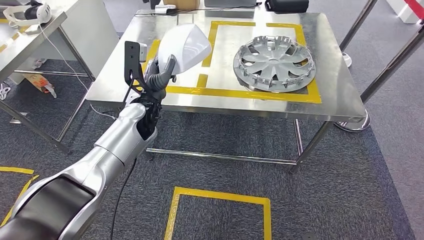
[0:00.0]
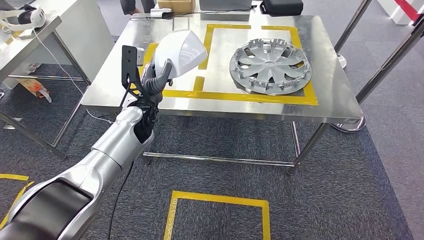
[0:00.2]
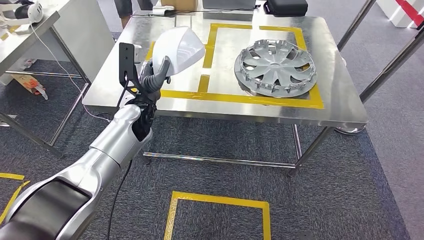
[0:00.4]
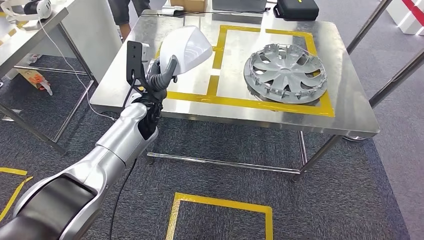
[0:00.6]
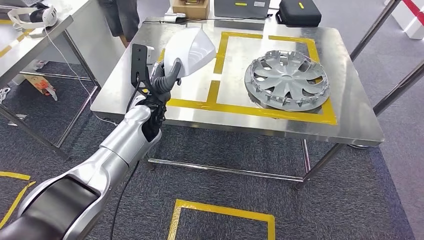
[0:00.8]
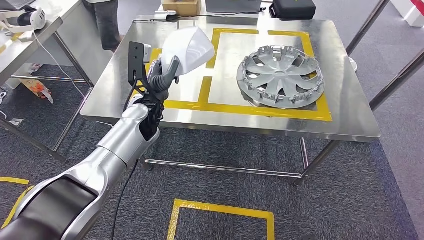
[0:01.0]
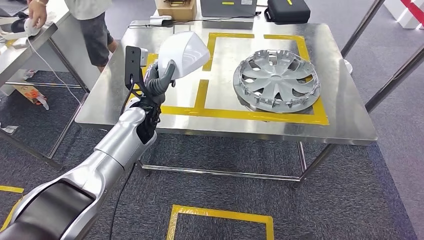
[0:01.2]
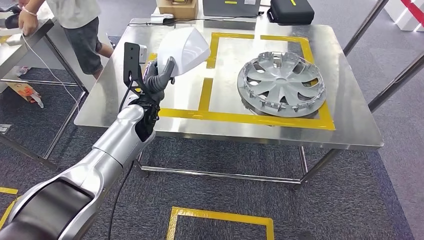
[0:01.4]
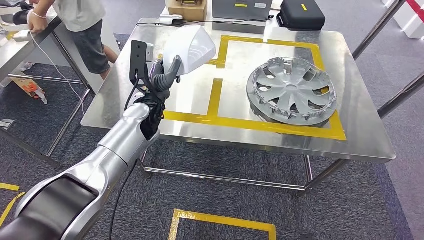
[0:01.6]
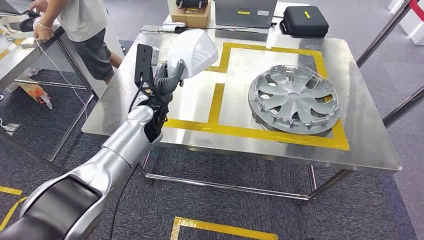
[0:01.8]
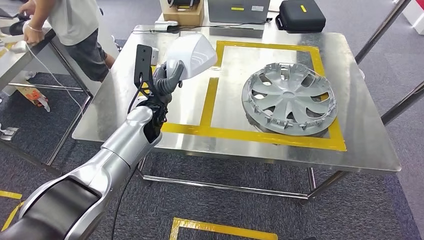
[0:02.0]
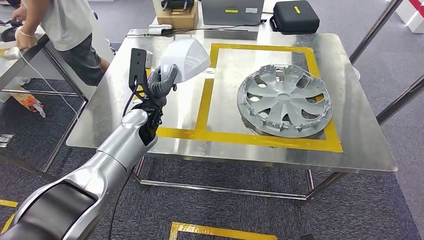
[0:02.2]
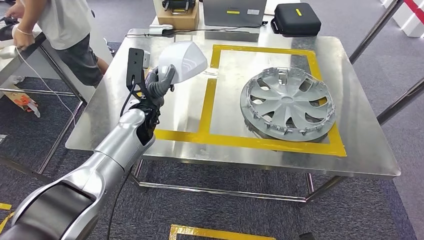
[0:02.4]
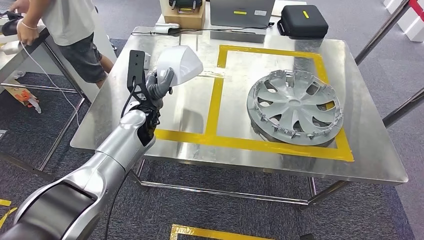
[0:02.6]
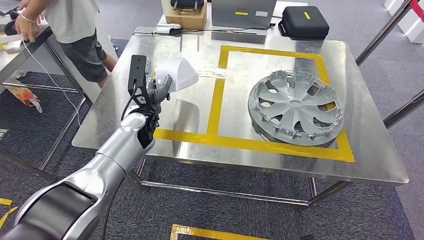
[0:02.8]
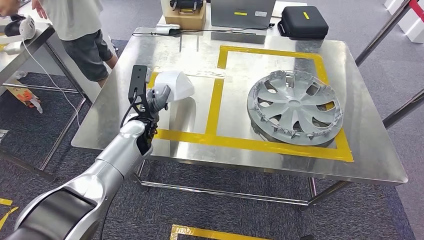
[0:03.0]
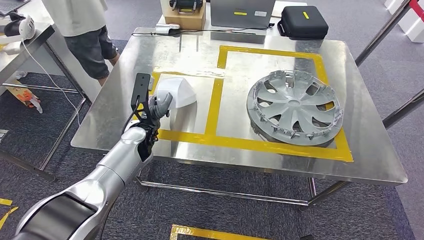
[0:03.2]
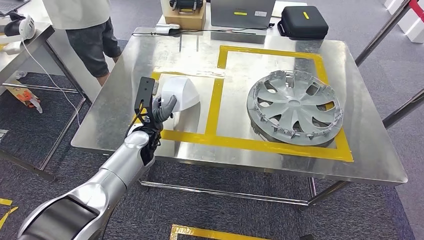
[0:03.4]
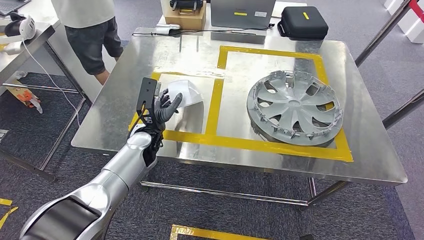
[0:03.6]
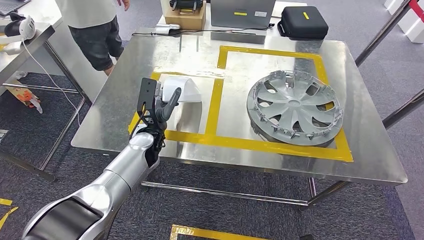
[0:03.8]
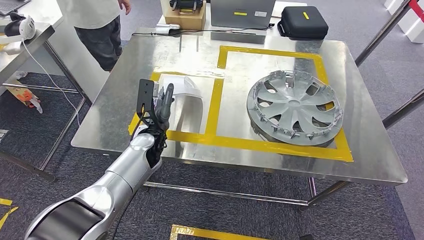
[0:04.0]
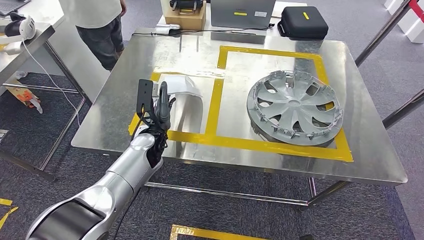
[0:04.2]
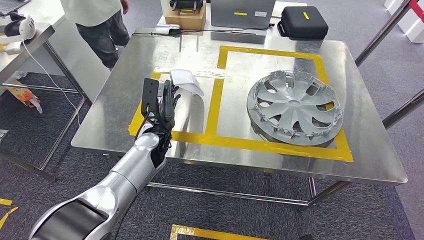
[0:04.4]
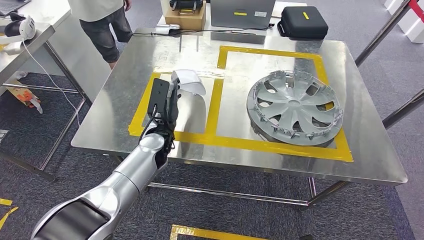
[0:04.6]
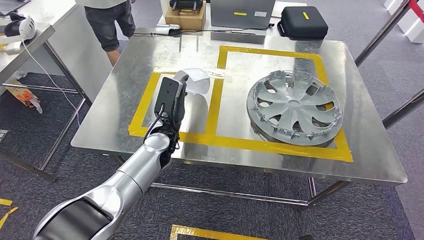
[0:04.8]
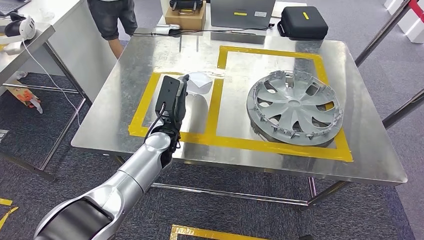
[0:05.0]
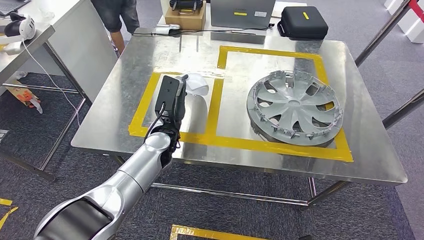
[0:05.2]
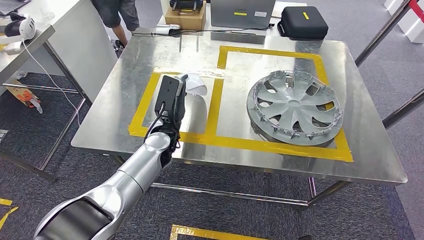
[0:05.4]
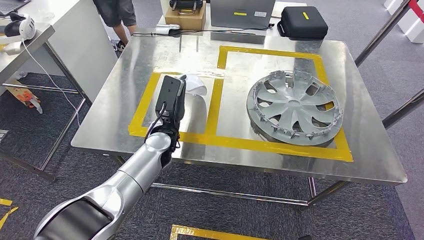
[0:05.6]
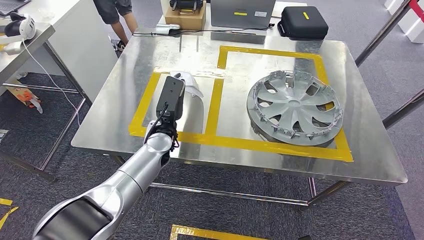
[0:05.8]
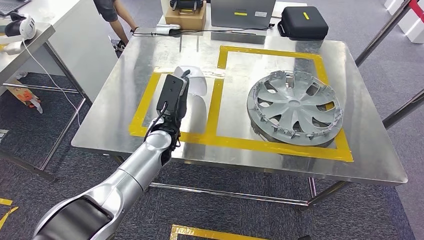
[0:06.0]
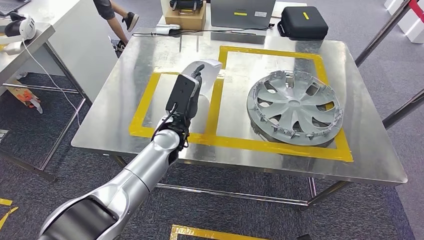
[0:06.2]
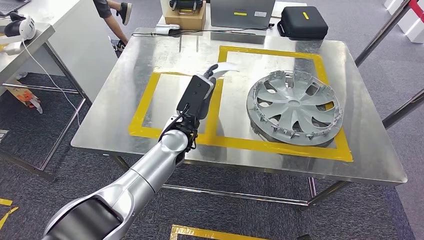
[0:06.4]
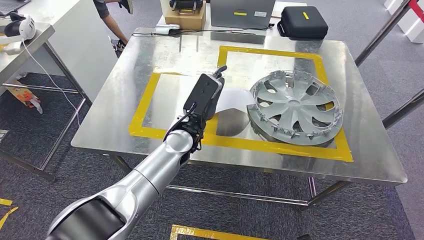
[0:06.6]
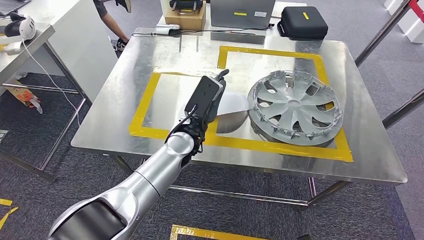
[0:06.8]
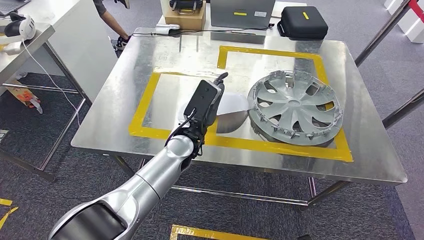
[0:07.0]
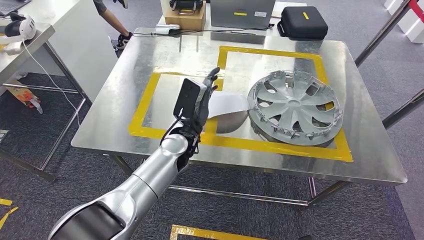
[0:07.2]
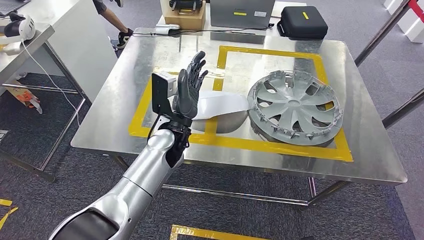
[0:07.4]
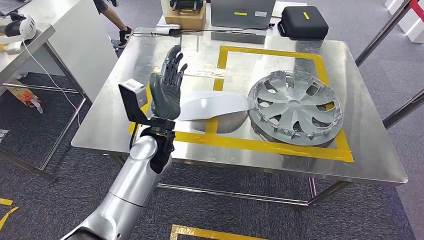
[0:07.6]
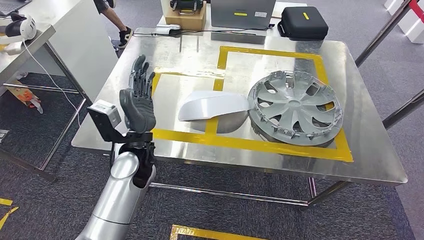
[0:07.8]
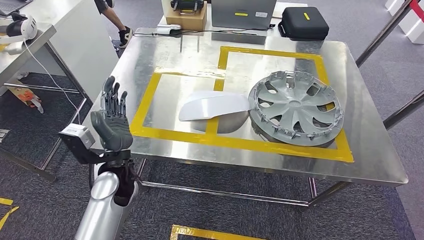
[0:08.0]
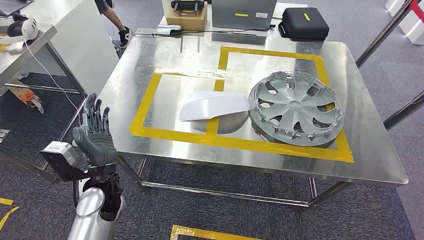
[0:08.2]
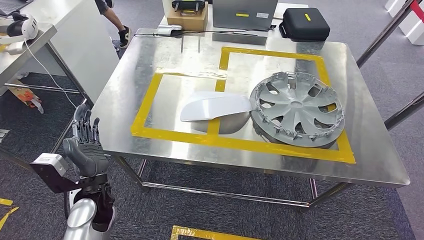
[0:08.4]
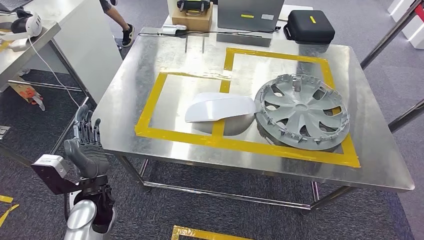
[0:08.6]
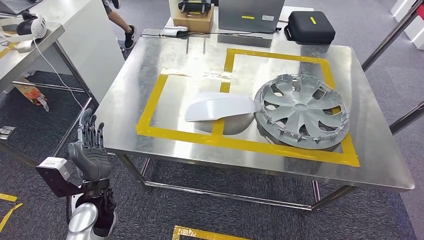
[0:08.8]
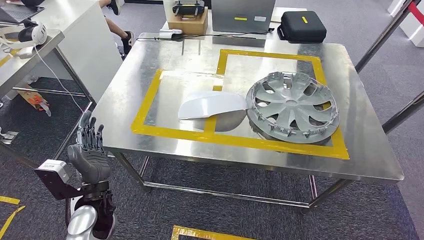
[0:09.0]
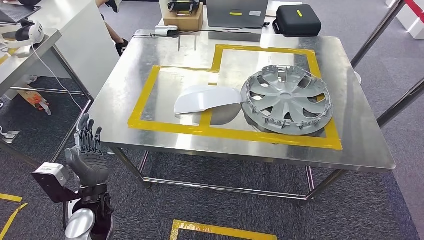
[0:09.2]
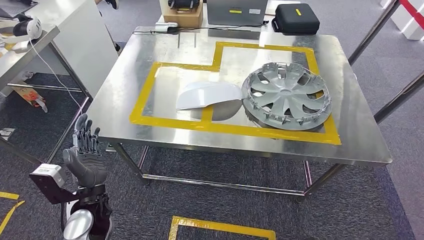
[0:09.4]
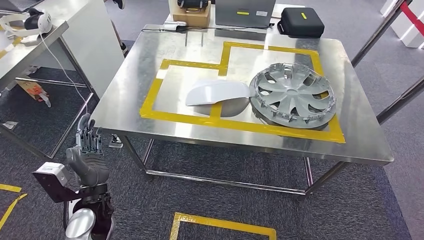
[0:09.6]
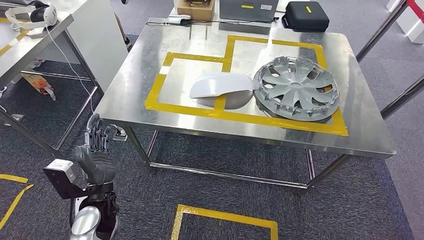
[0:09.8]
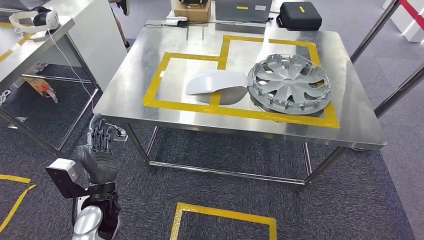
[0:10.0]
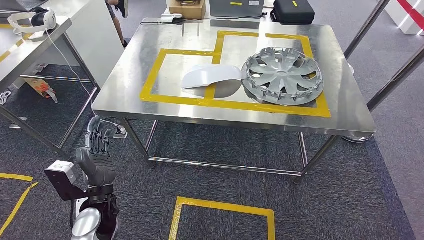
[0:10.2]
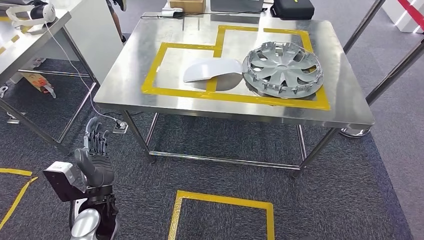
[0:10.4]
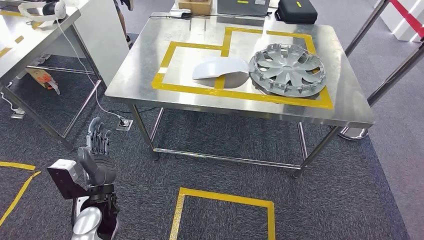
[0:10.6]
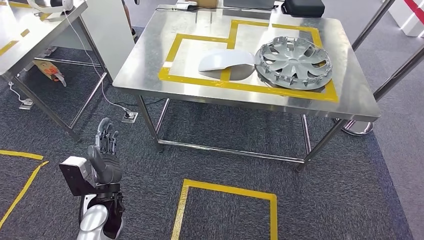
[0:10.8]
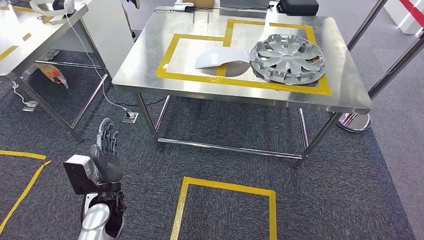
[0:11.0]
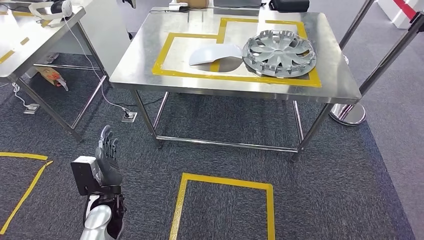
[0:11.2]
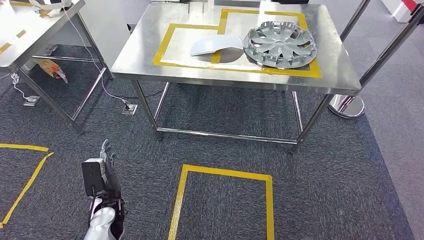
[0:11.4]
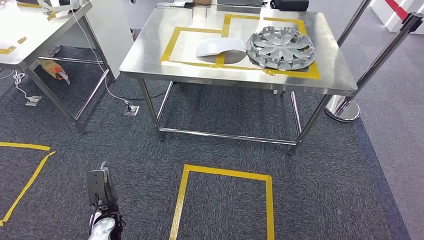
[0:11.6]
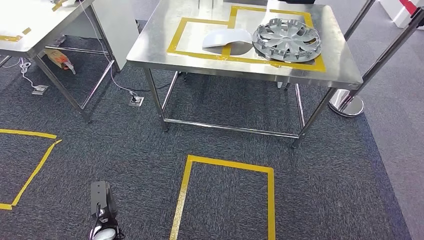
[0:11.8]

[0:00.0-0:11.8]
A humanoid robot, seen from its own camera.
Step, 0:00.0 to 0:06.4: Insert the large material into the corresponding slot on the workbench.
0:03.0 to 0:04.4: The left hand shifts by approximately 5 cm.
0:06.0 to 0:07.4: The left hand travels to the right by some 5 cm.

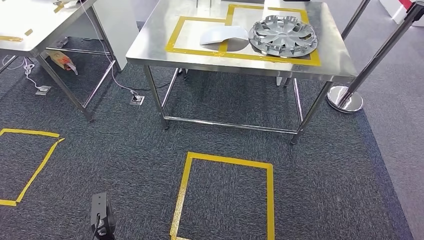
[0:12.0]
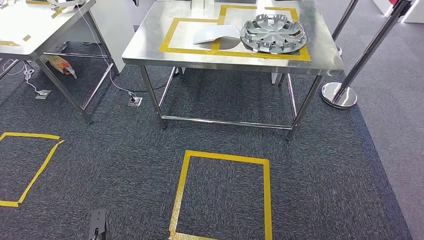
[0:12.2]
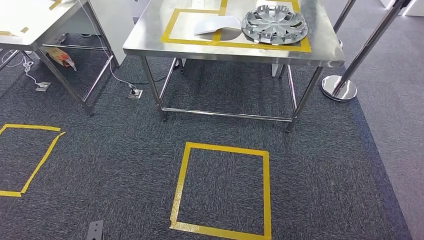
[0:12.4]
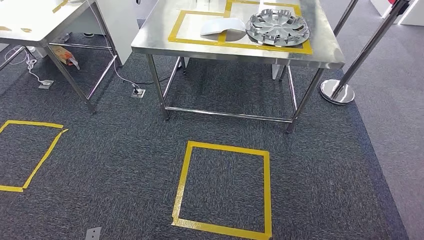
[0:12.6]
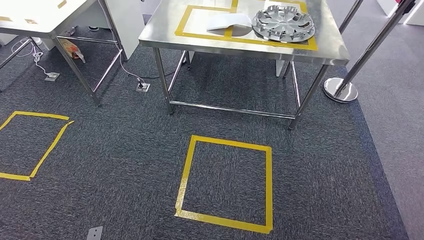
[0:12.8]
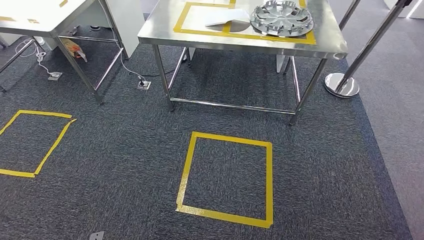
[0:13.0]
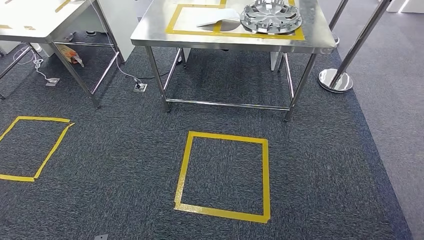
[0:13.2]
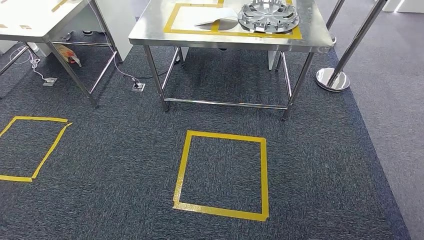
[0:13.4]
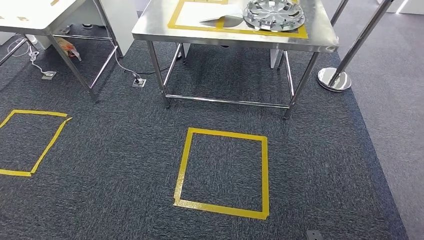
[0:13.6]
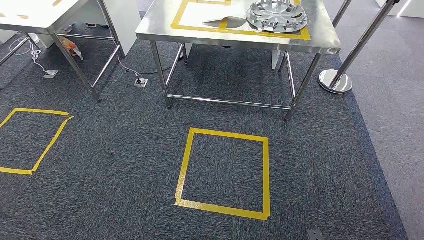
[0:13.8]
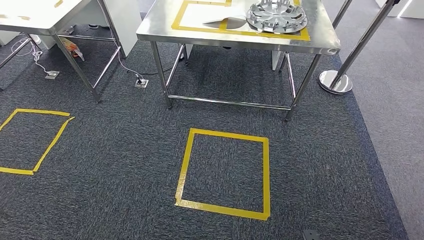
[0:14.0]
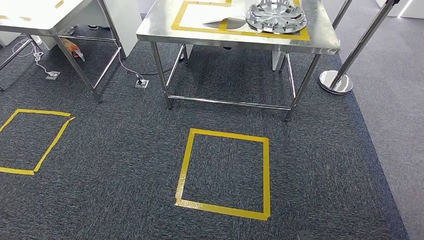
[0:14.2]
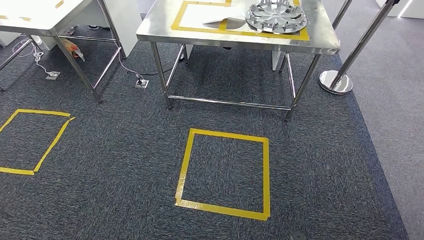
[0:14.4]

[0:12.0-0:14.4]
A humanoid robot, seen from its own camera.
Step, 0:12.0 to 0:14.4: Move to the initial position of the shelf.
0:13.2 to 0:14.4: The left hand heads backward, covering approximately 5 cm.
